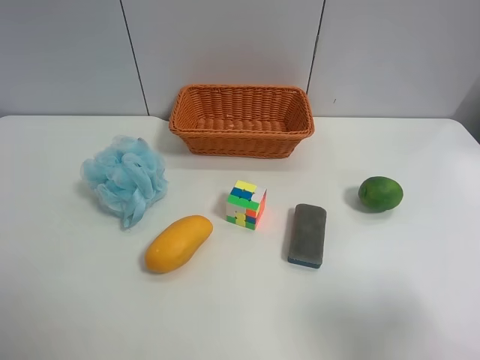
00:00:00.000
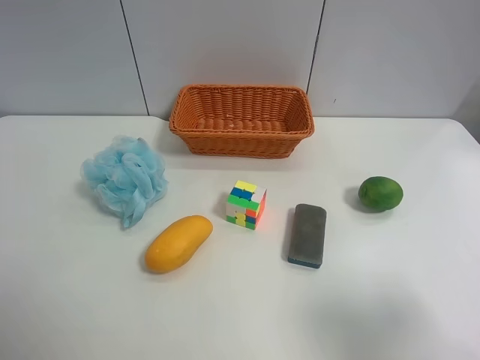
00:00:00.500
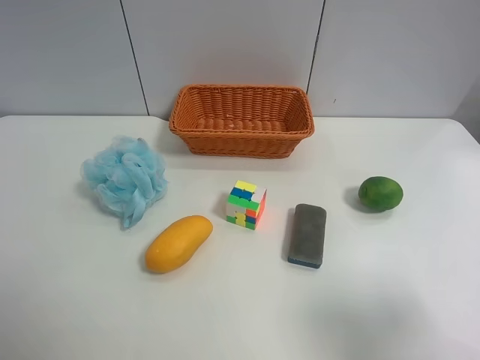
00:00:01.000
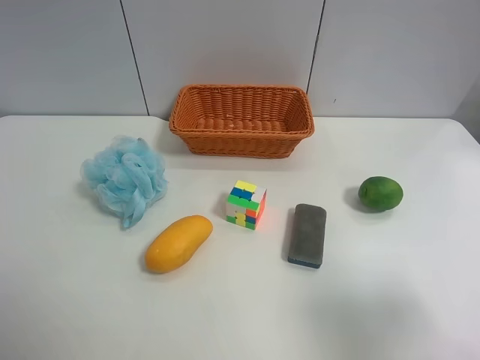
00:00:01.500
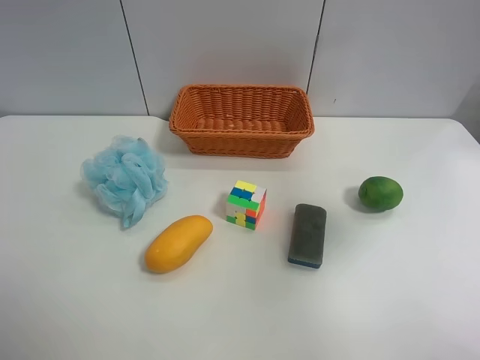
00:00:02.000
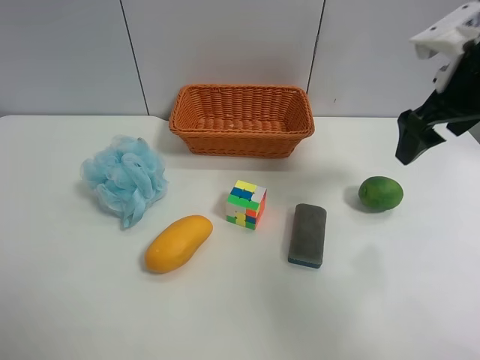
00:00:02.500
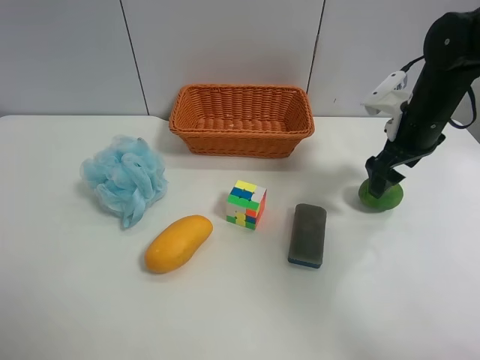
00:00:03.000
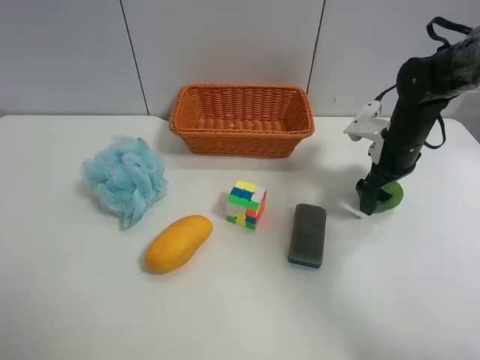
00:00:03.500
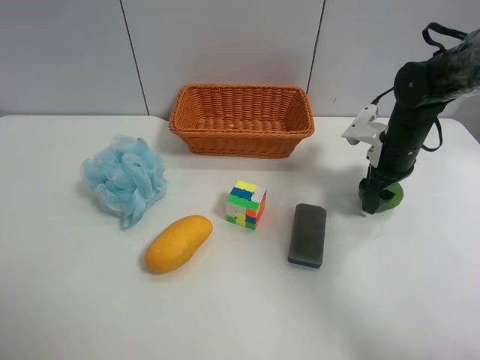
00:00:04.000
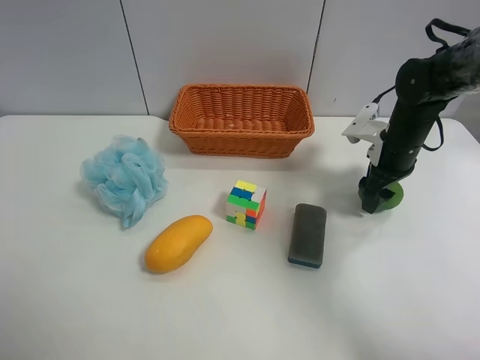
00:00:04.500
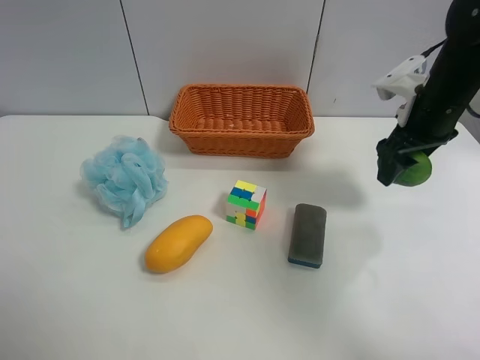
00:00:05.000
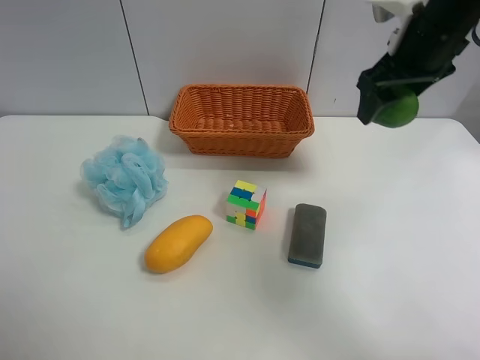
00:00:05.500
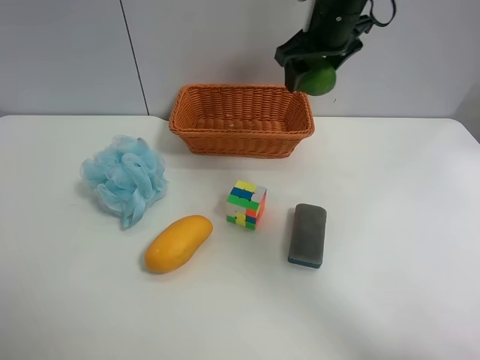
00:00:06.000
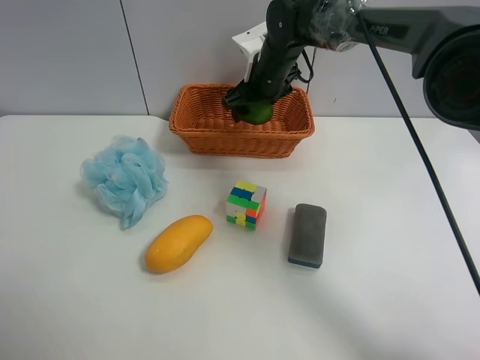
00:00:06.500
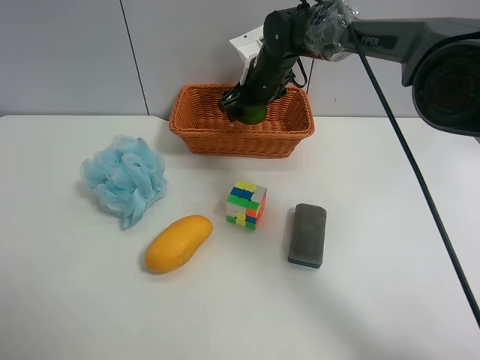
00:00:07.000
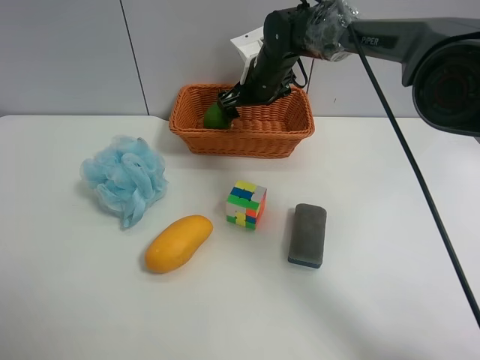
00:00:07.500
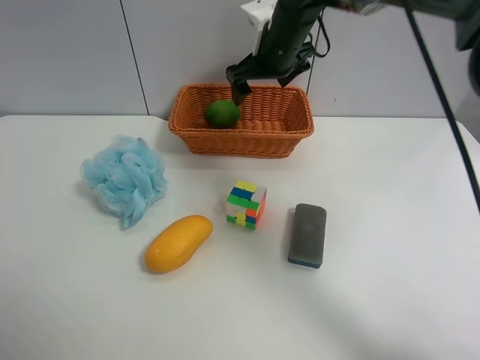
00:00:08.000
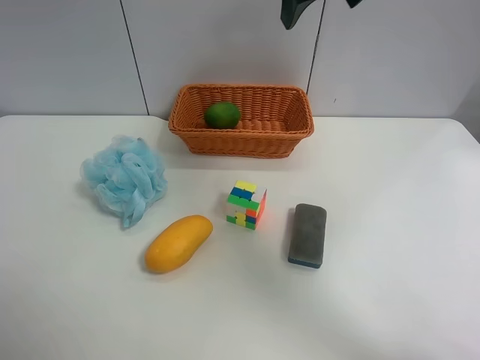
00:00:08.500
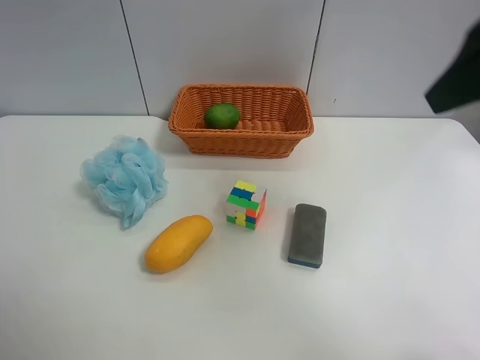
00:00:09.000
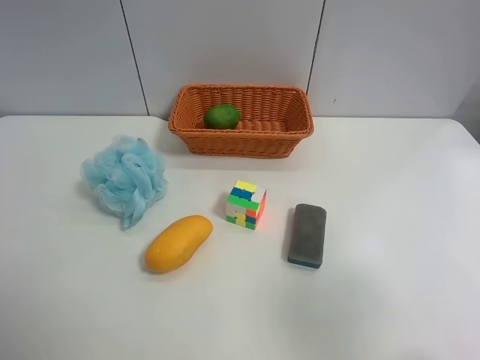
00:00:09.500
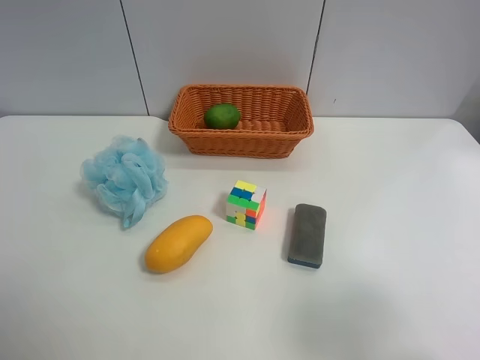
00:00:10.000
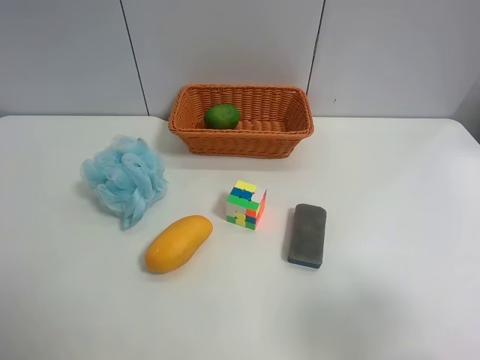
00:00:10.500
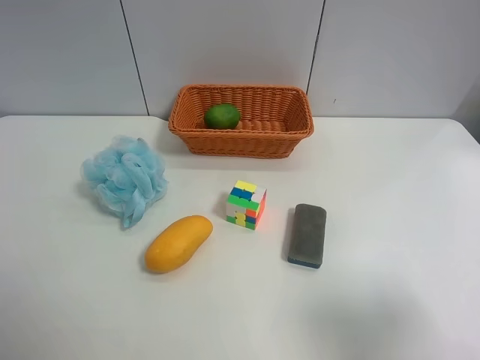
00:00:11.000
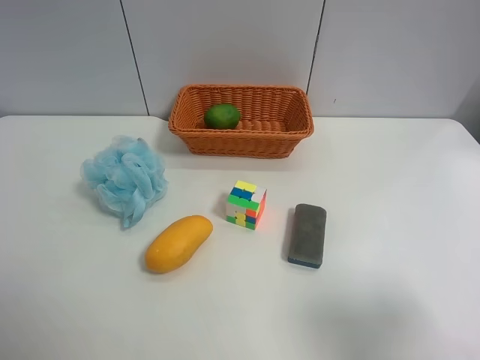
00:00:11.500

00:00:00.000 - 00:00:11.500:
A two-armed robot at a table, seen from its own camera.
Task of the whole recording: Randomly grab green lemon or mangoes from the table and put them in a basket.
Step, 00:00:00.000 - 00:00:04.000: Grasp the Lemon with the right gripper.
Step, 00:00:04.500 - 00:00:08.000: Place the Lemon into the basket with the right gripper.
00:00:00.000 - 00:00:02.000: The right gripper shifts approximately 15 cm forward and upward.
00:00:02.000 - 00:00:04.000: The right gripper moves forward and downward, approximately 35 cm, and closes its fingers.
00:00:04.000 - 00:00:06.000: The right gripper shifts roughly 20 cm upward and to the left.
00:00:06.000 - 00:00:07.500: The right gripper is displaced downward, to the left and forward by about 15 cm, and opens up.
00:00:07.500 - 00:00:09.500: The right gripper is displaced backward and to the right by roughly 50 cm.

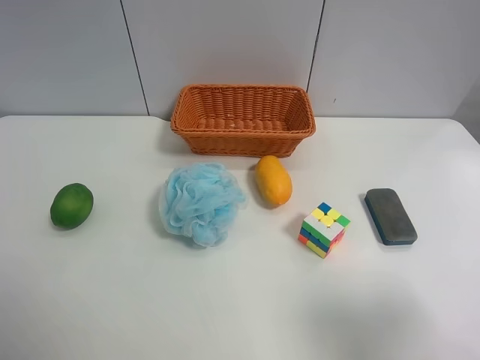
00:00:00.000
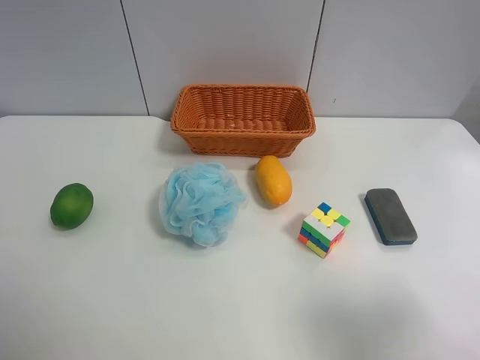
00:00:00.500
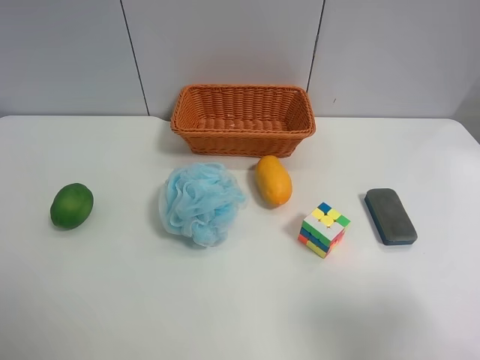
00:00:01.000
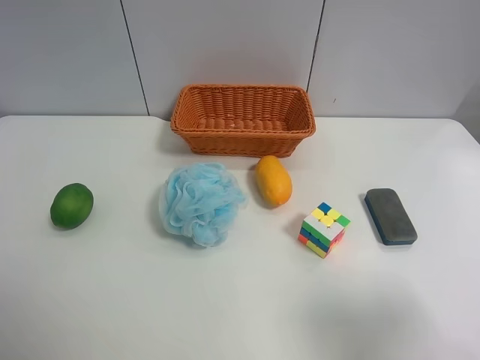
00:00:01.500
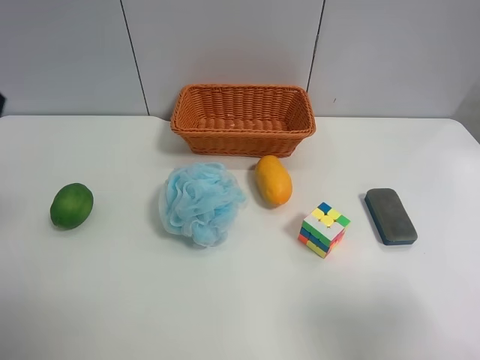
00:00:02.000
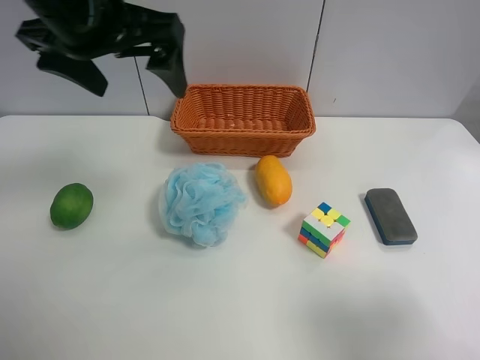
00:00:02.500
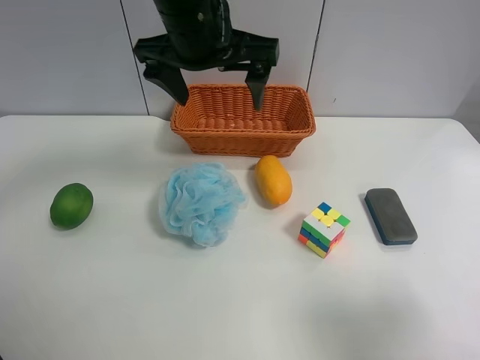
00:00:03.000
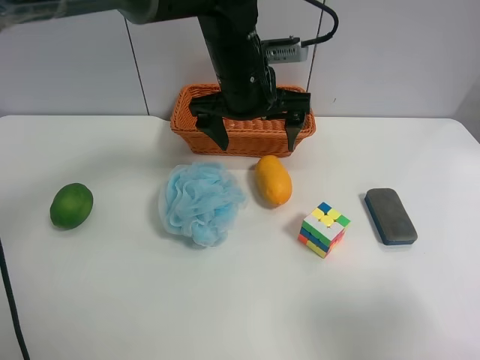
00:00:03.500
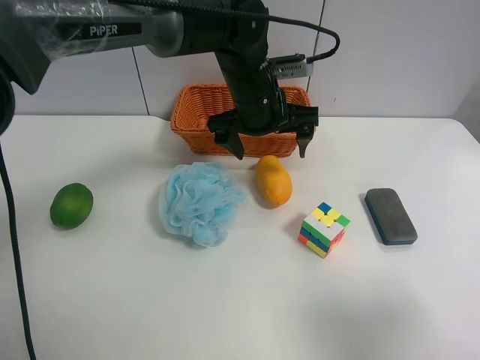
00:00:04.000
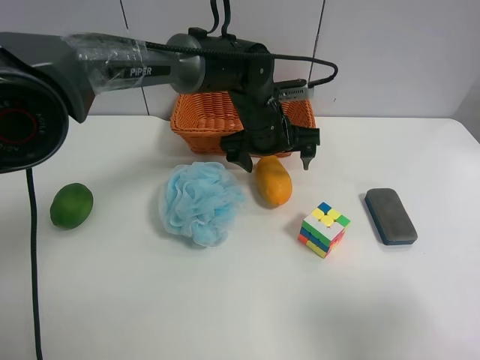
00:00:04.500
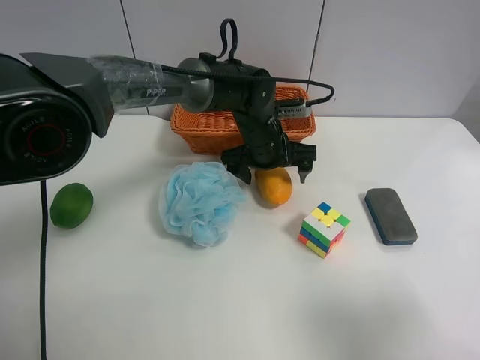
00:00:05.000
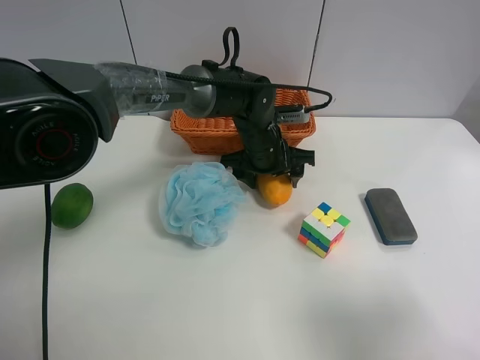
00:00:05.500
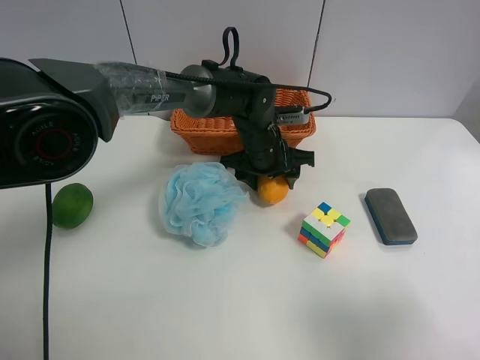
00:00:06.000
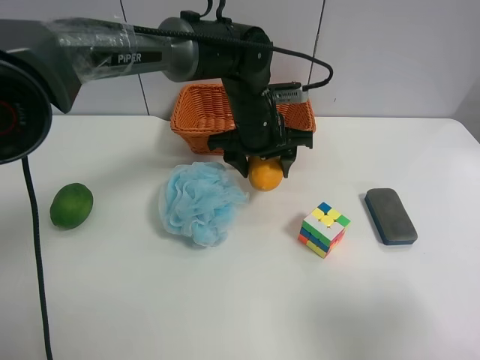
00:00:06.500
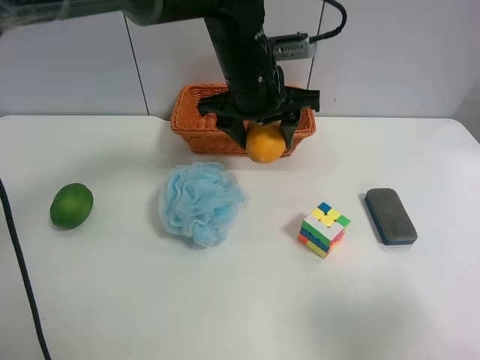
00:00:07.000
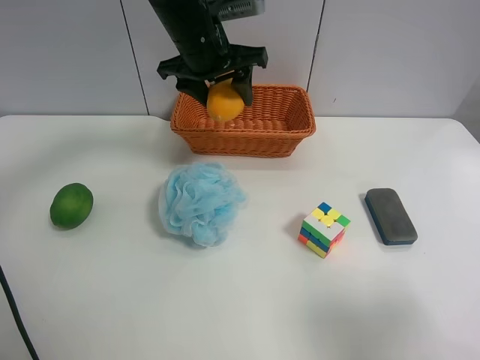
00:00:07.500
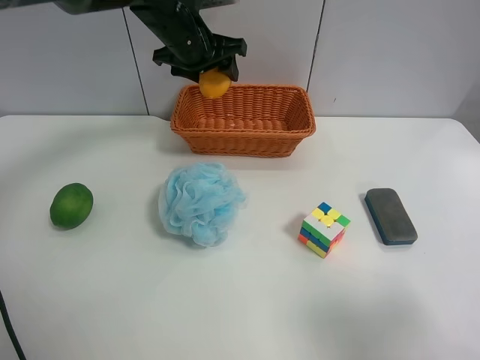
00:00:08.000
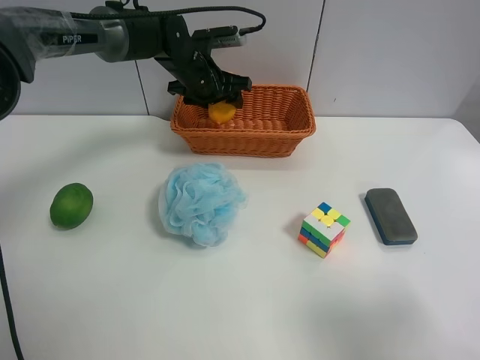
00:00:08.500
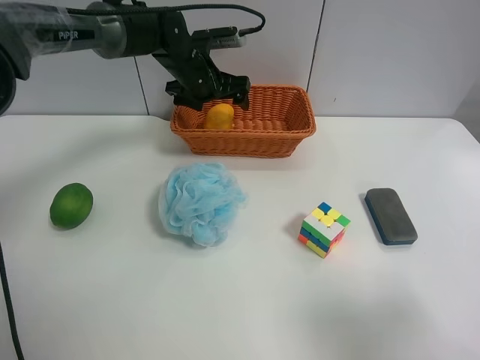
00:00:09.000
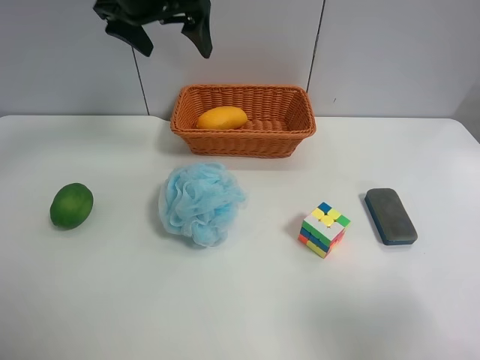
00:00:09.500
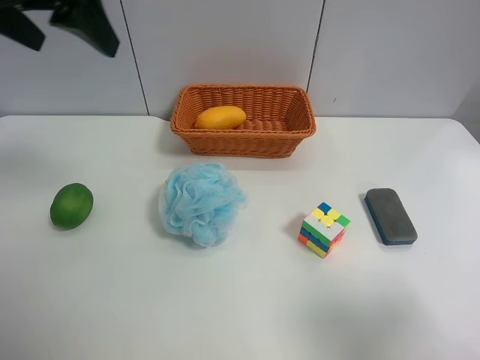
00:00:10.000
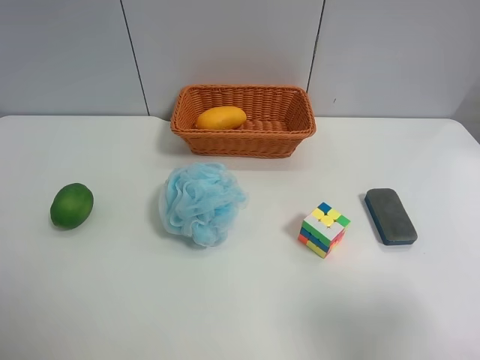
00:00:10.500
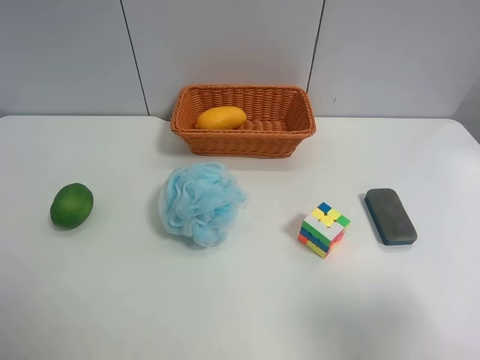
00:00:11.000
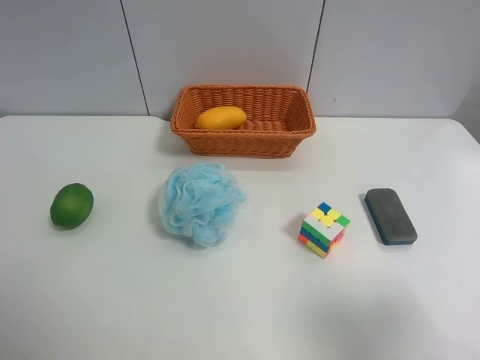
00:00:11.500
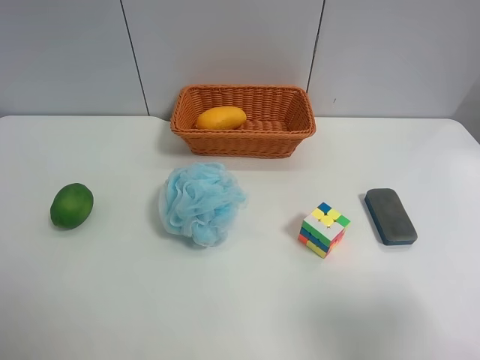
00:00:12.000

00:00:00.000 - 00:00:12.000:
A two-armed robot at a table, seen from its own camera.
Task of the whole recording: Randomly grab green lemon or mangoes from the table and put them in a basket.
Step, 00:00:00.000 - 00:00:05.500: Grasp the mango with the left gripper.
Step, 00:00:06.000 - 00:00:09.000: Place the mango into the basket with the left gripper.
00:00:02.000 - 00:00:04.000: The left gripper moves to the right, forward and downward, about 40 cm.
00:00:04.000 - 00:00:06.000: The left gripper moves downward, about 10 cm, and closes up.
00:00:06.000 - 00:00:08.000: The left gripper travels upward, to the left and forward by roughly 20 cm.
00:00:08.000 - 00:00:10.000: The left gripper is displaced backward, upward and to the left by approximately 30 cm, and opens.
00:00:10.000 - 00:00:12.000: The left gripper shifts approximately 30 cm backward and downward.
